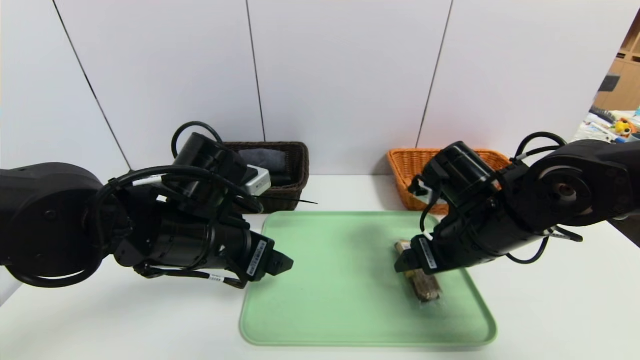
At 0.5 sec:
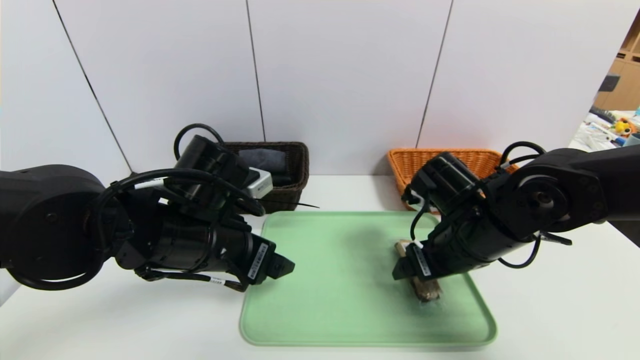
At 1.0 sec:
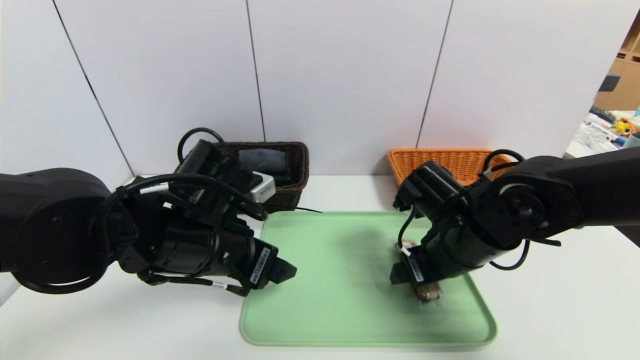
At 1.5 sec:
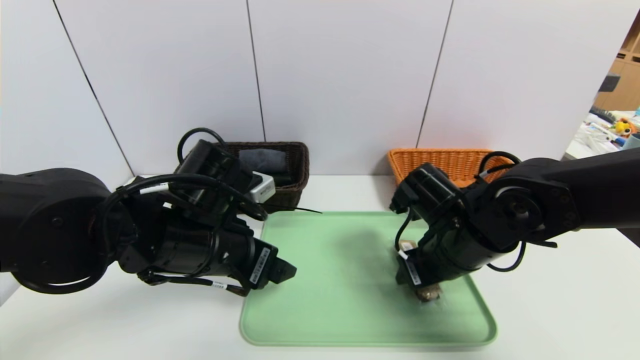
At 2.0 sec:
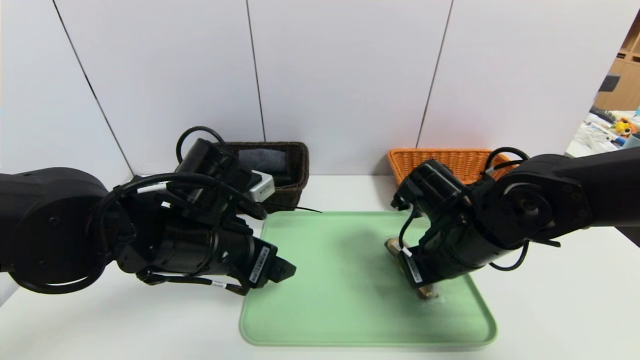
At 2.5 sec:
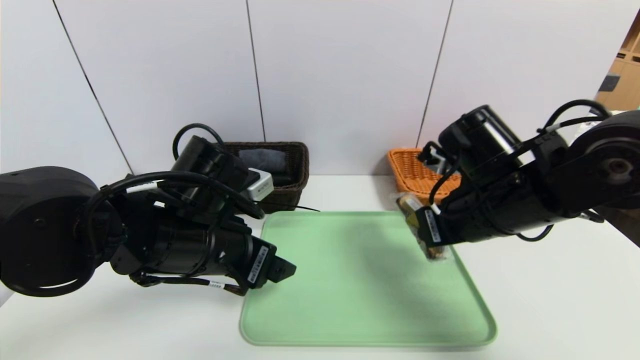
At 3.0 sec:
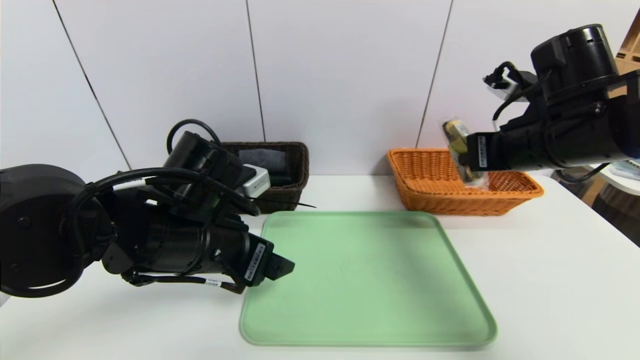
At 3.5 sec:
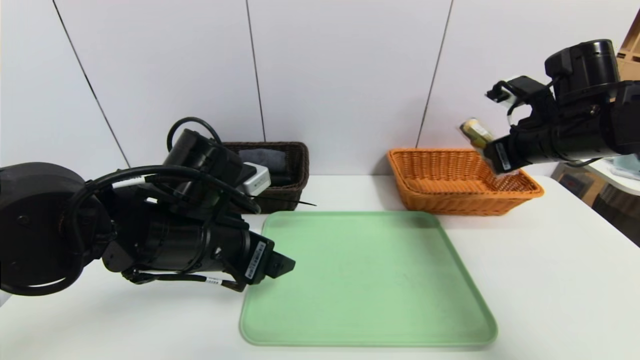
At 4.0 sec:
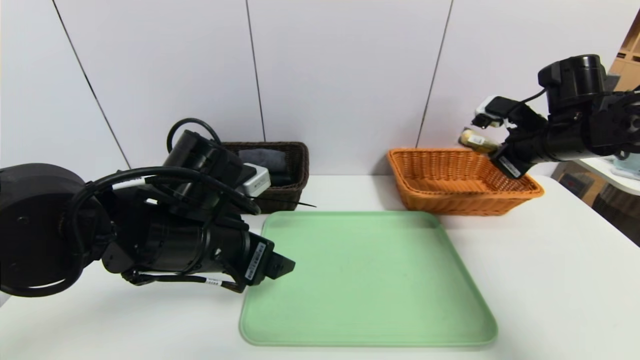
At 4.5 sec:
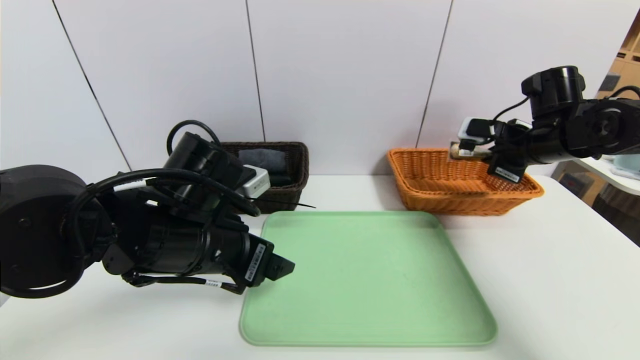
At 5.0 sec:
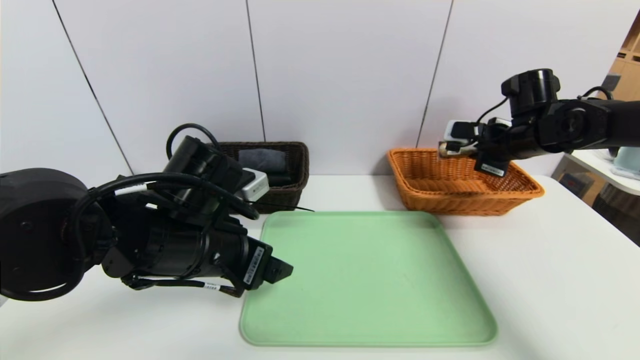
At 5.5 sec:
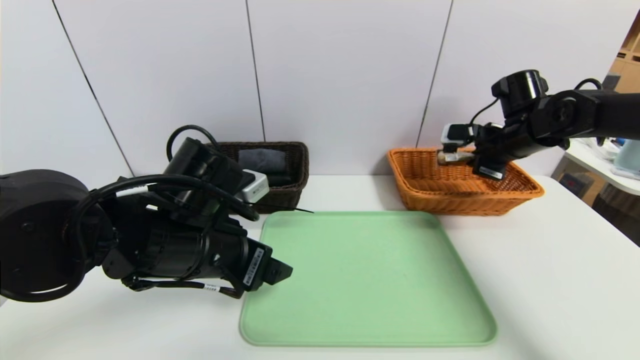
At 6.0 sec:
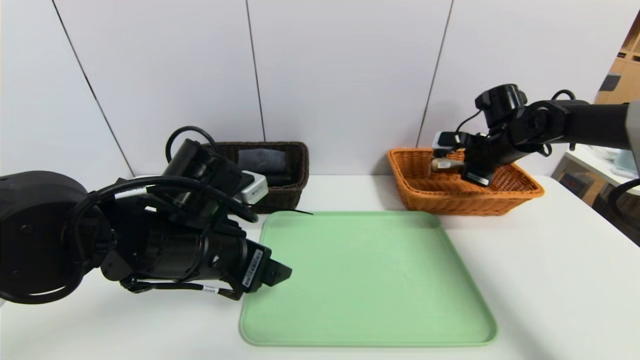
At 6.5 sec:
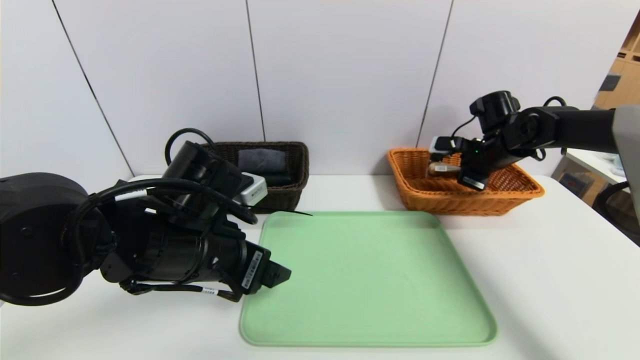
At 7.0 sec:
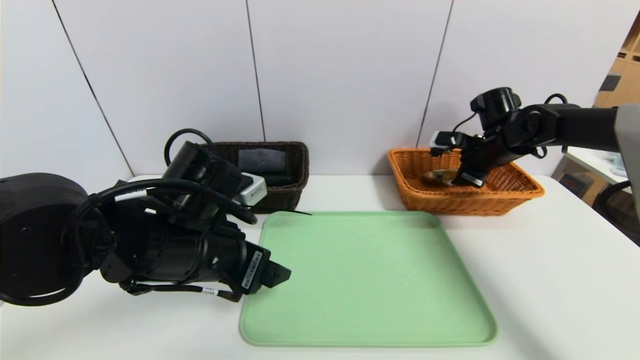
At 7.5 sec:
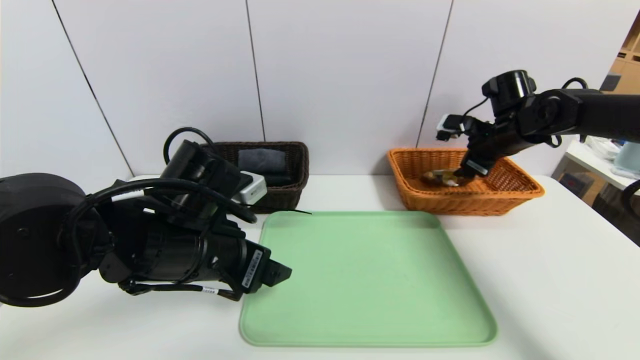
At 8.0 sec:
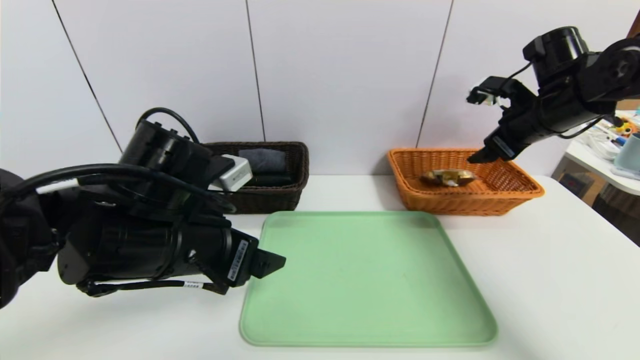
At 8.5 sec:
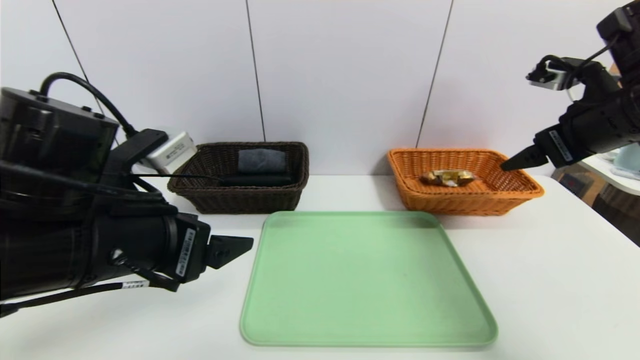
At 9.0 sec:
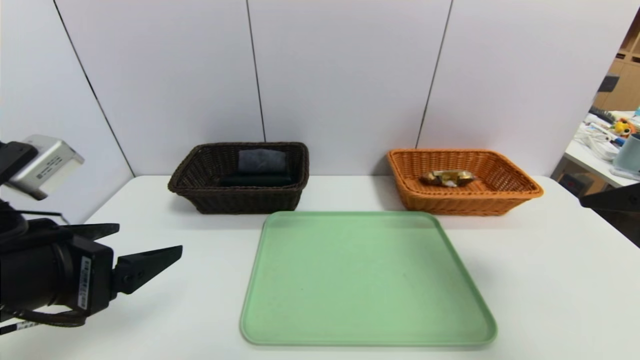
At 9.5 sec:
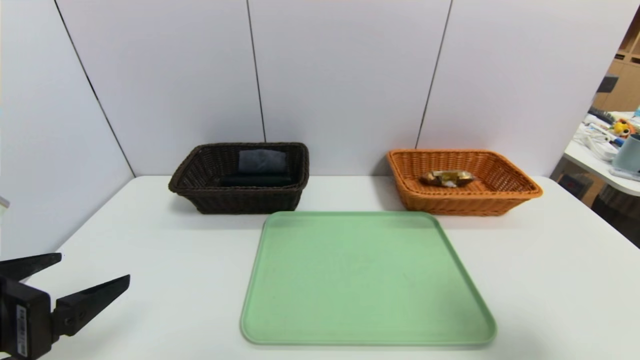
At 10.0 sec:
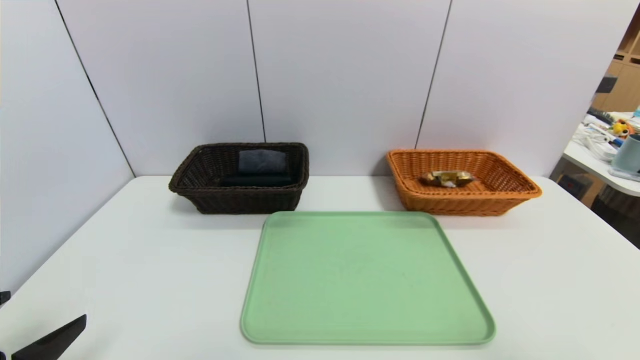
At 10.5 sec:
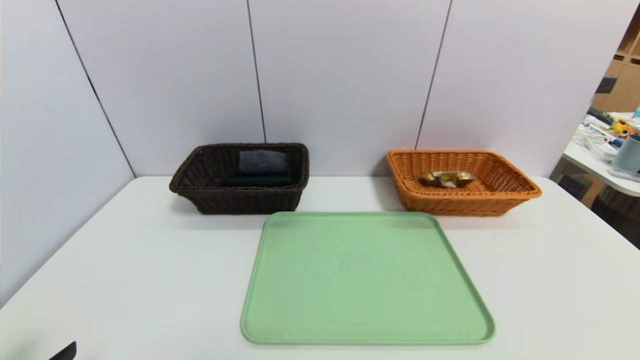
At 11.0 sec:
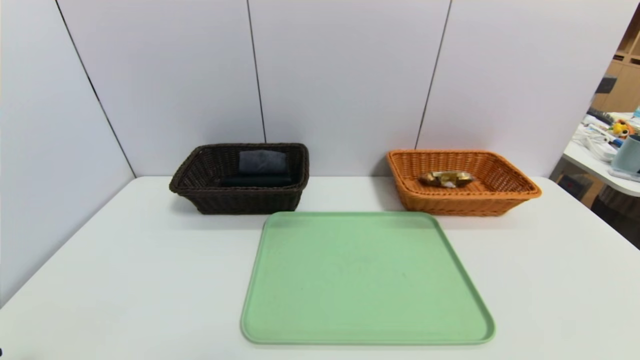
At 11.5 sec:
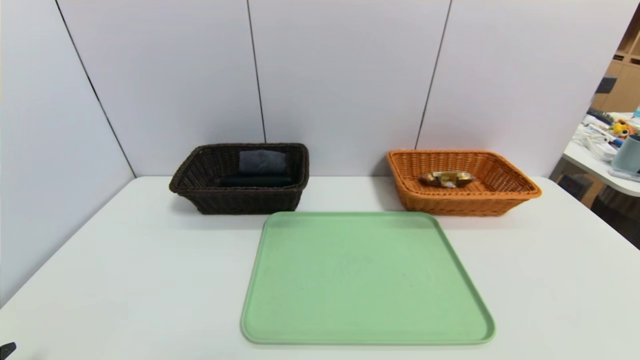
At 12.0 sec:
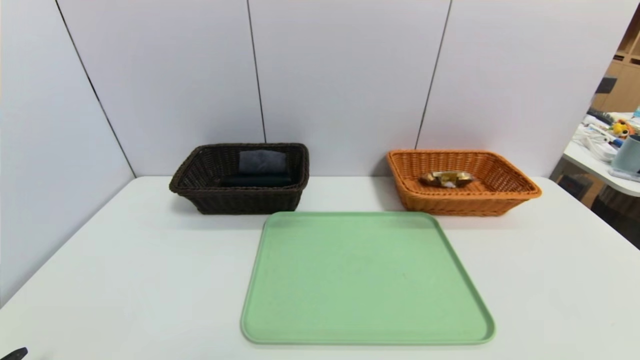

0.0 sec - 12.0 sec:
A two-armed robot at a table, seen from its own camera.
Task of the whole recording: place the food in the right basket with the right gripper, and place the non food items in the left basket with the left gripper.
Step, 0.0 sec - 7.0 sec: Grasp the chocolate and put it in the right basket.
0.0 sec - 2.0 sec: The right gripper closes.
2.0 sec - 4.0 sec: The right gripper travels to the right, forward and upward by some 20 cm.
4.0 sec - 6.0 sec: The right gripper goes about 10 cm forward and downward.
6.0 sec - 8.0 sec: The right gripper is displaced upward and backward by some 10 cm, and opens its fingers.
8.0 sec - 10.0 sec: The left gripper travels backward and to the left by approximately 20 cm. The right gripper moves backward, about 40 cm.
10.0 sec - 12.0 sec: The left gripper heads downward, covering approximately 10 cm.

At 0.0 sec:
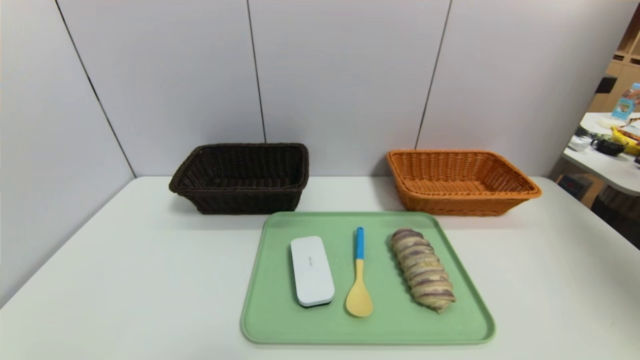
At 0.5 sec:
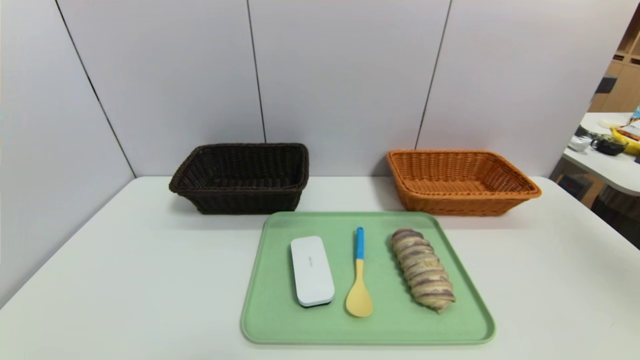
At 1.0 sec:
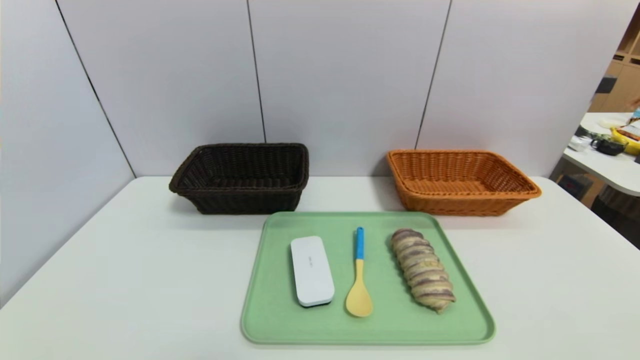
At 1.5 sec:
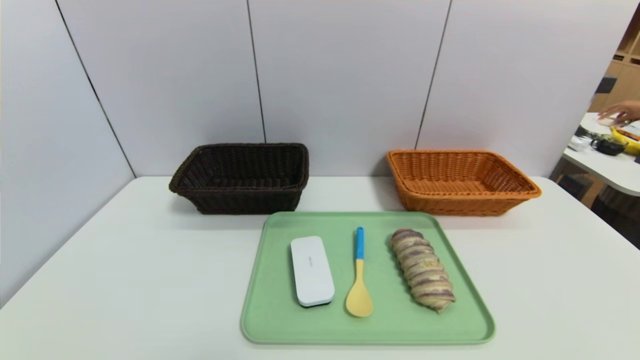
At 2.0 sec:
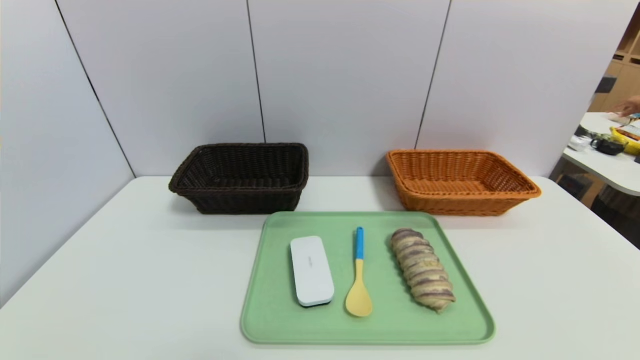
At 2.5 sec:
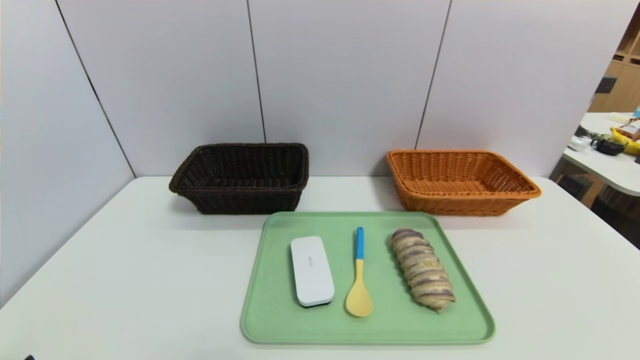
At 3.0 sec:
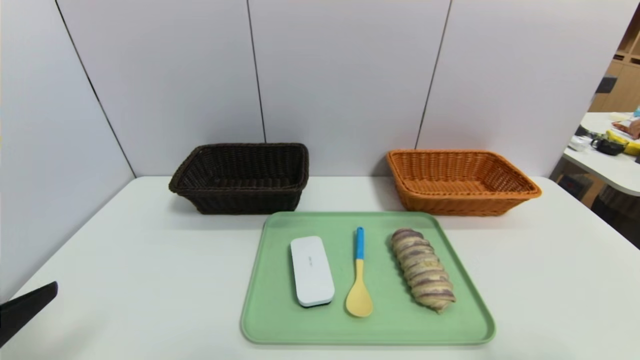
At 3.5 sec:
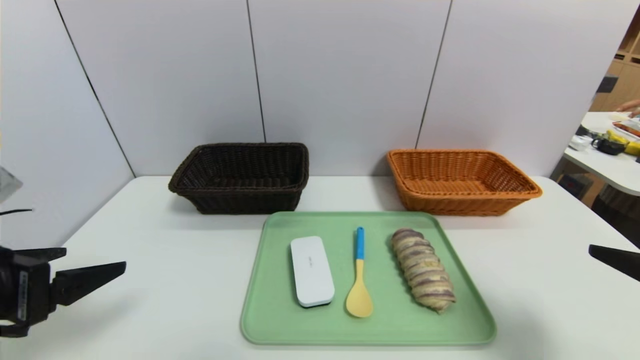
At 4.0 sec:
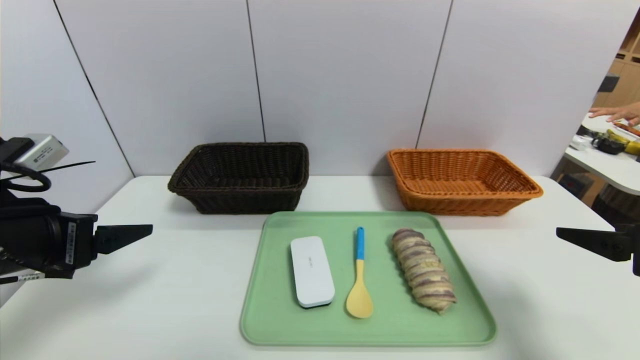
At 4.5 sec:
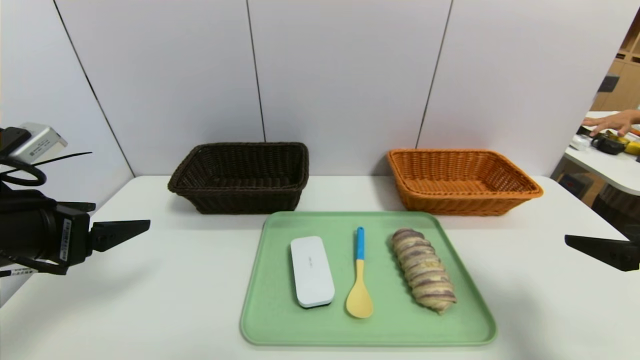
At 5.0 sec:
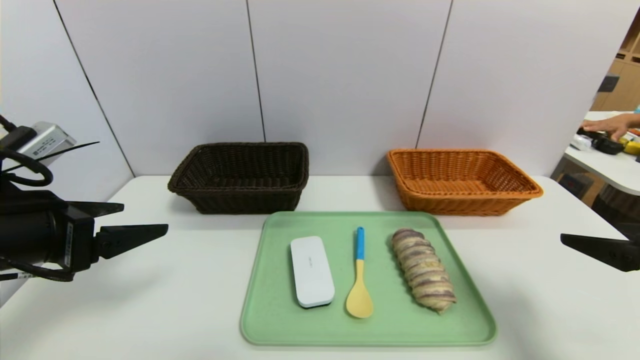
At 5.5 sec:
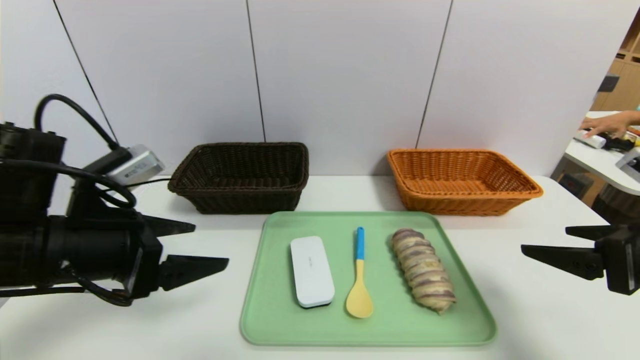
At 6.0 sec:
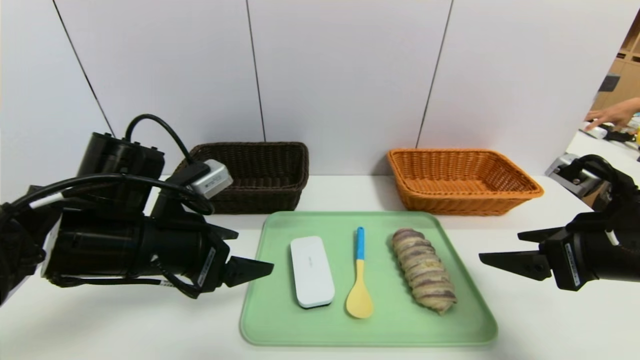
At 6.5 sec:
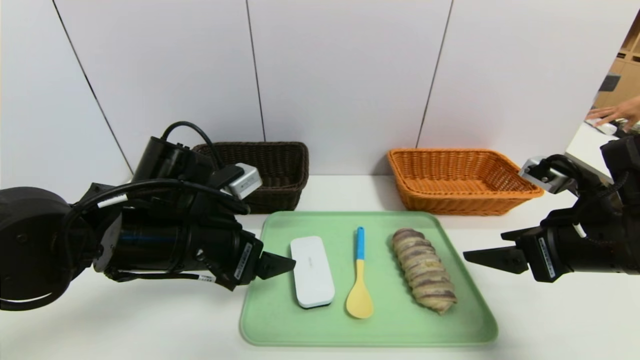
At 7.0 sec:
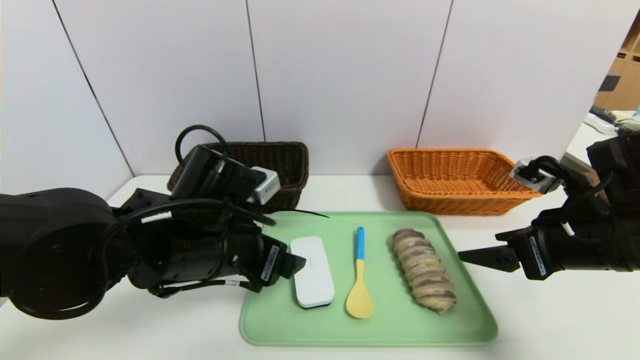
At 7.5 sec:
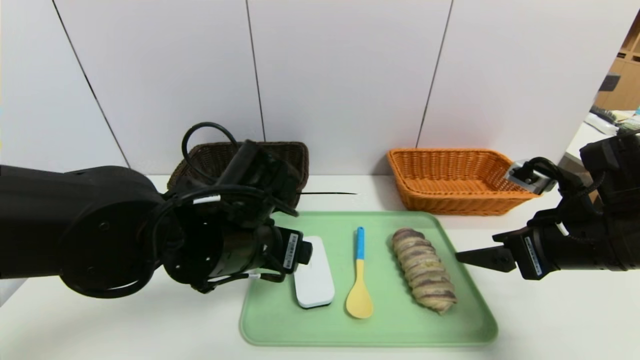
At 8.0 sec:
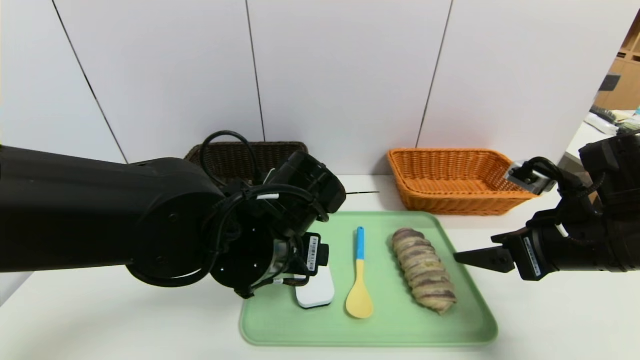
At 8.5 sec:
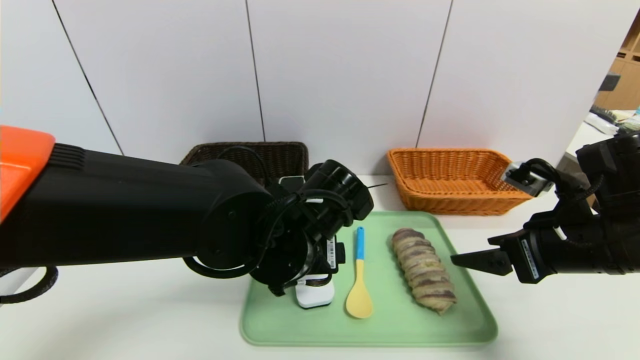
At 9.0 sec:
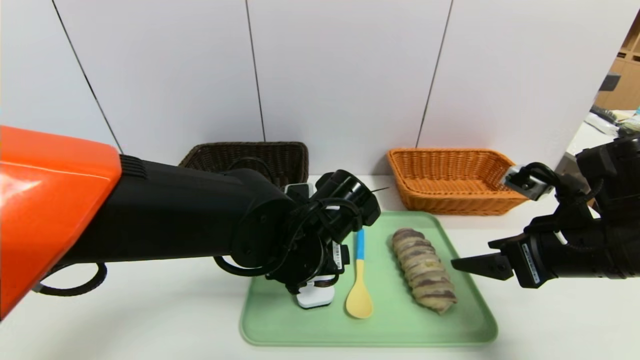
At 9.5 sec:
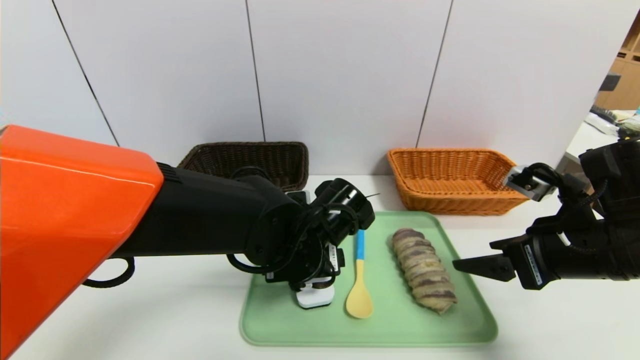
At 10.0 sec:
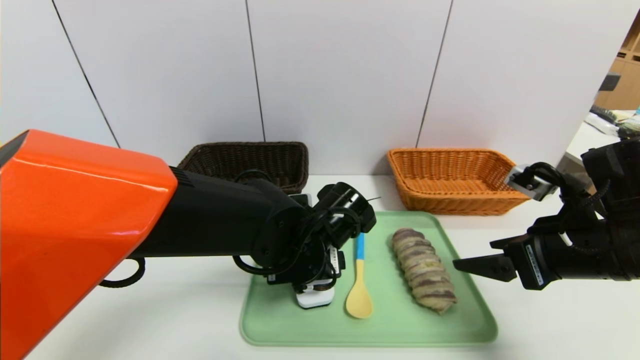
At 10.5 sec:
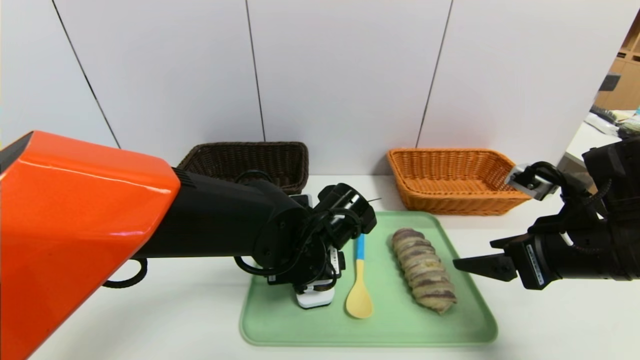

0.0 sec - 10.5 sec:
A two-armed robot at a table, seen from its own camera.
Task of the whole recording: place the food in the right basket with the right gripper, and place the non food items in the left basket with the left gripper.
0.0 sec - 2.0 sec: The grippers make only small movements.
2.0 sec - 4.0 sec: Both grippers travel together forward and upward, some 25 cm.
4.0 sec - 6.5 sec: The left gripper shifts roughly 15 cm to the right and forward. The right gripper moves forward and to the left, approximately 10 cm.
6.5 sec - 8.5 sec: The left gripper shifts about 10 cm to the right.
8.5 sec - 10.5 sec: The left gripper ends up some 5 cm from where it was.
